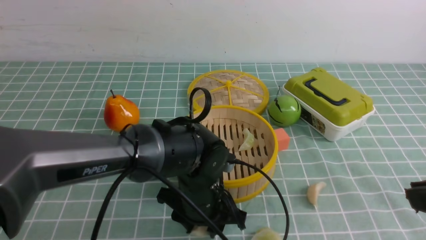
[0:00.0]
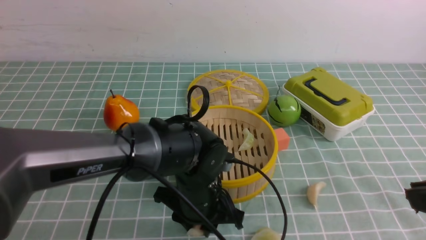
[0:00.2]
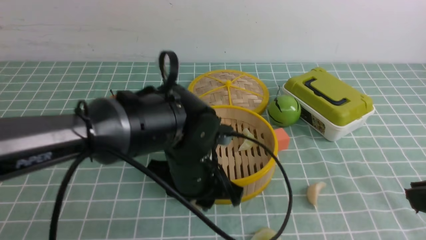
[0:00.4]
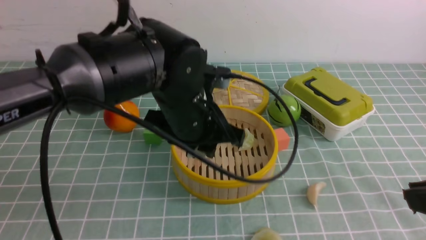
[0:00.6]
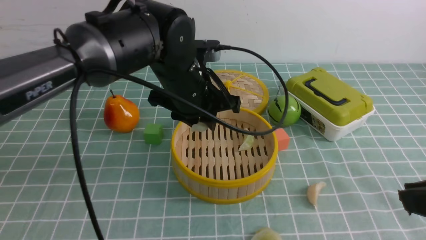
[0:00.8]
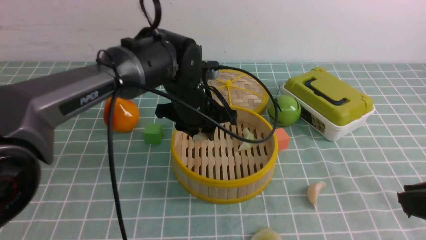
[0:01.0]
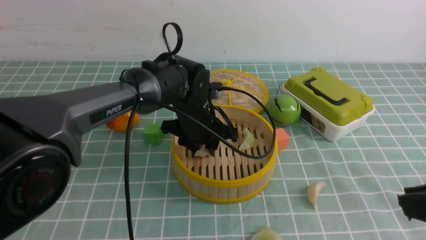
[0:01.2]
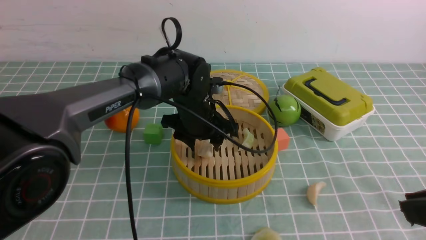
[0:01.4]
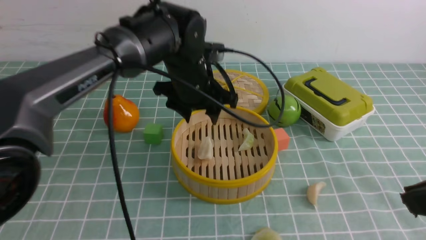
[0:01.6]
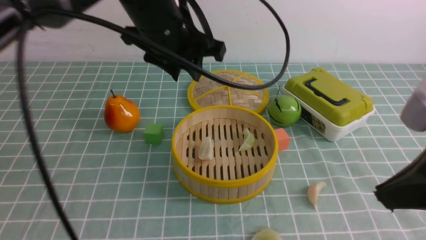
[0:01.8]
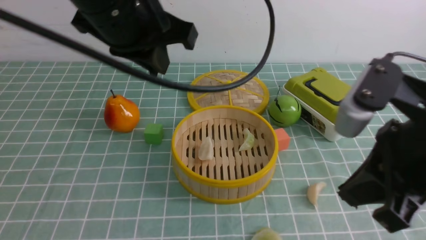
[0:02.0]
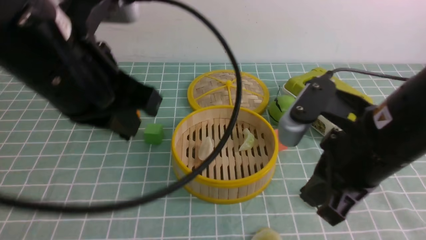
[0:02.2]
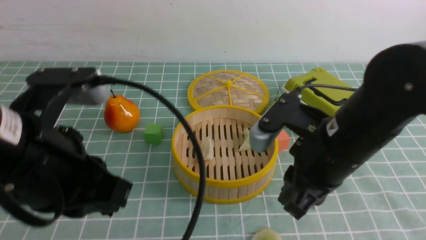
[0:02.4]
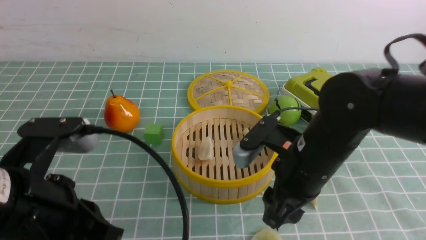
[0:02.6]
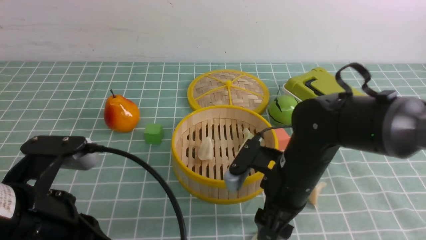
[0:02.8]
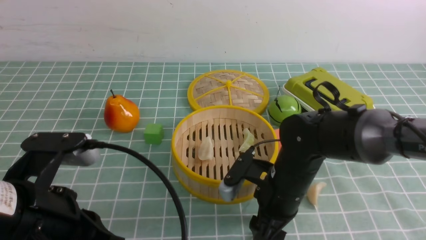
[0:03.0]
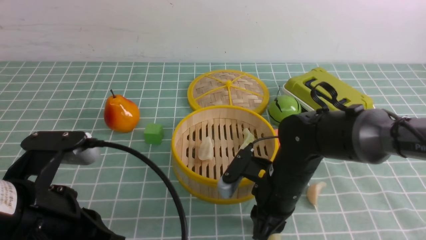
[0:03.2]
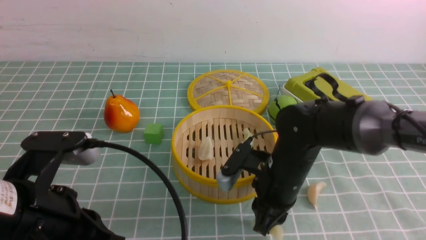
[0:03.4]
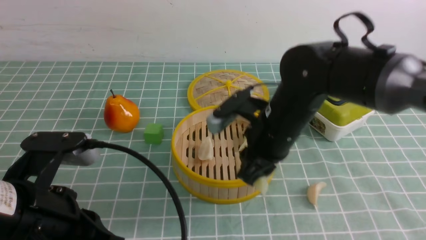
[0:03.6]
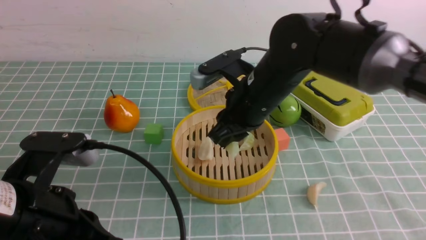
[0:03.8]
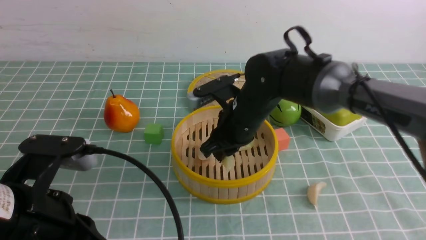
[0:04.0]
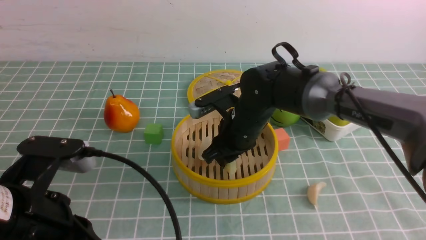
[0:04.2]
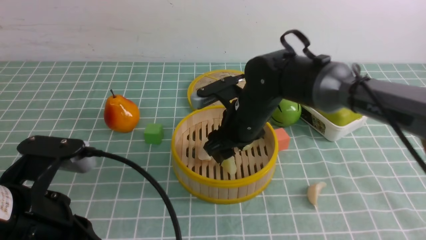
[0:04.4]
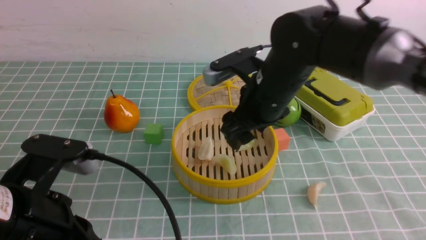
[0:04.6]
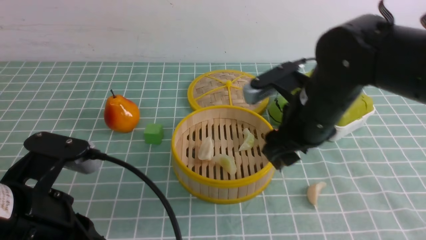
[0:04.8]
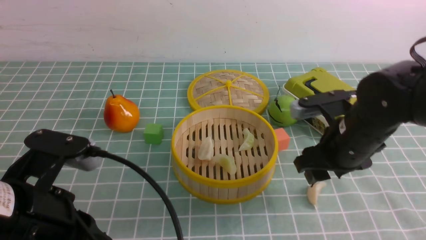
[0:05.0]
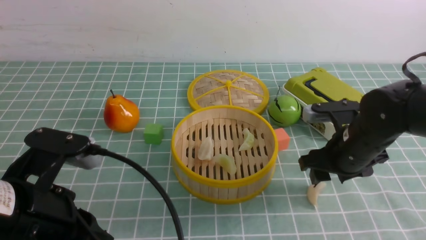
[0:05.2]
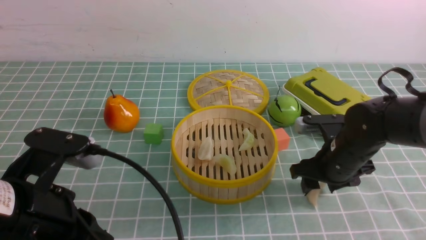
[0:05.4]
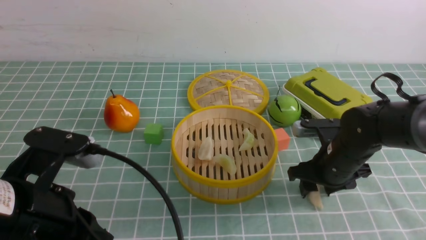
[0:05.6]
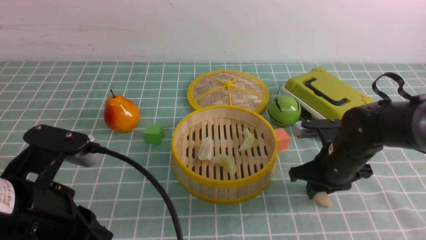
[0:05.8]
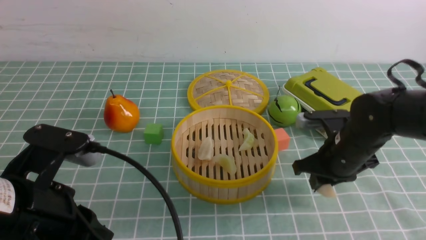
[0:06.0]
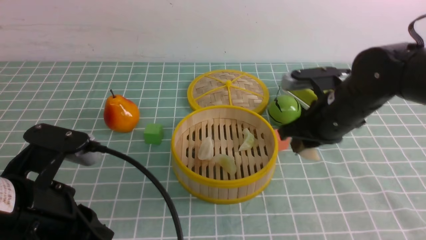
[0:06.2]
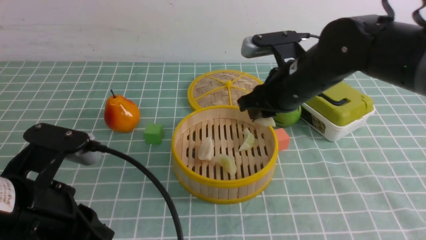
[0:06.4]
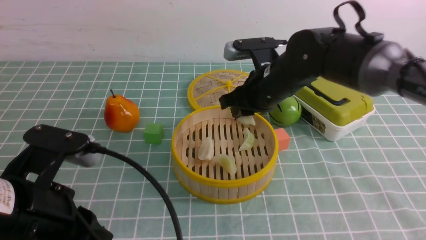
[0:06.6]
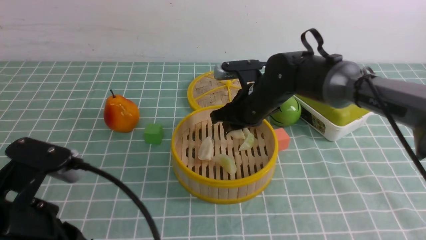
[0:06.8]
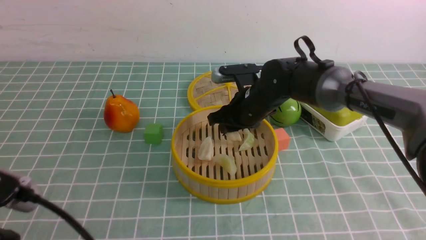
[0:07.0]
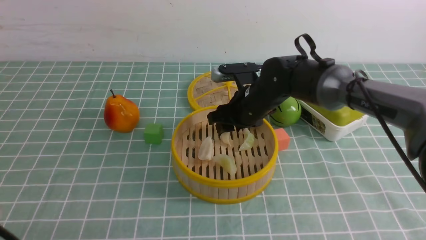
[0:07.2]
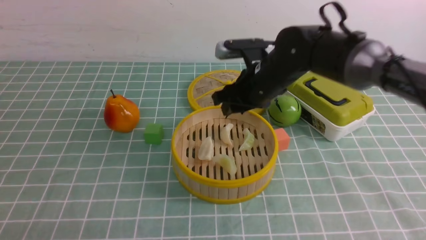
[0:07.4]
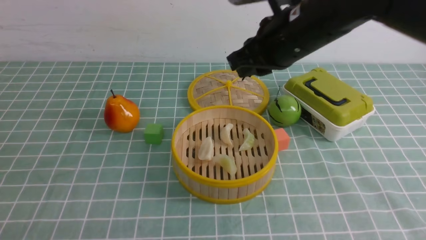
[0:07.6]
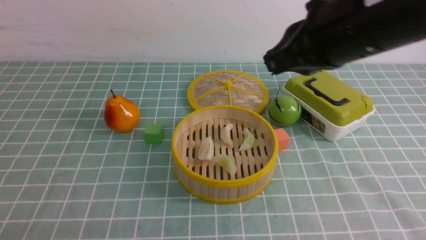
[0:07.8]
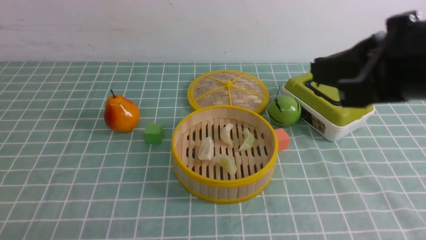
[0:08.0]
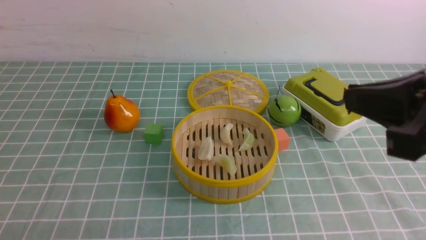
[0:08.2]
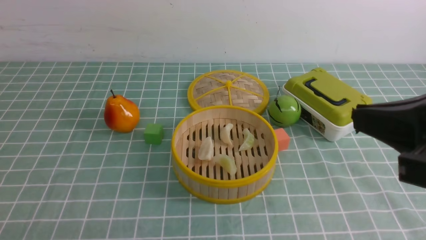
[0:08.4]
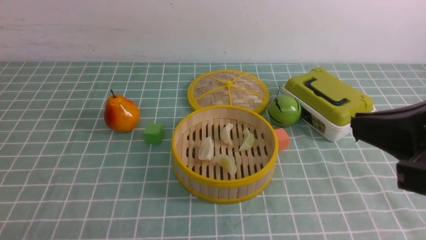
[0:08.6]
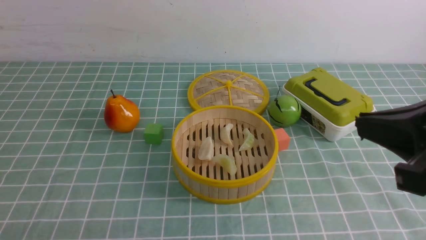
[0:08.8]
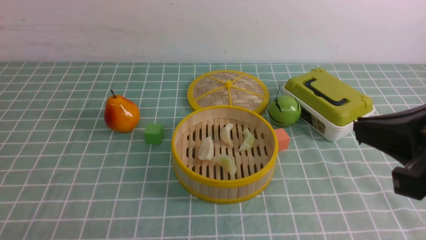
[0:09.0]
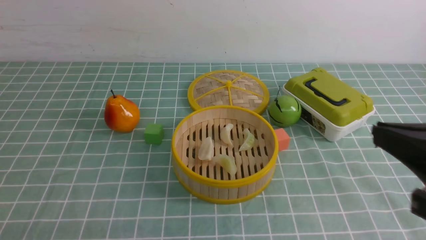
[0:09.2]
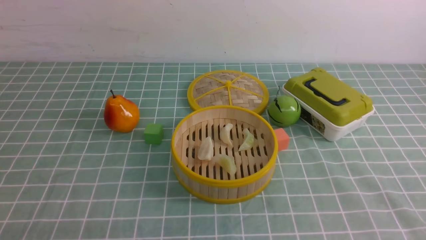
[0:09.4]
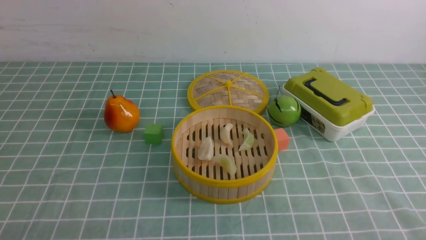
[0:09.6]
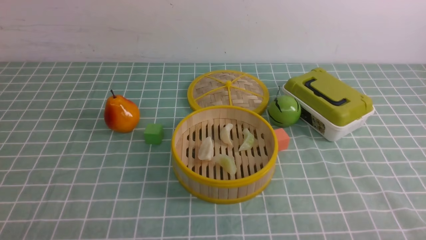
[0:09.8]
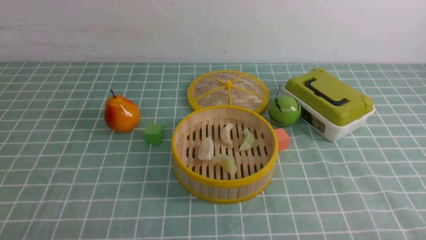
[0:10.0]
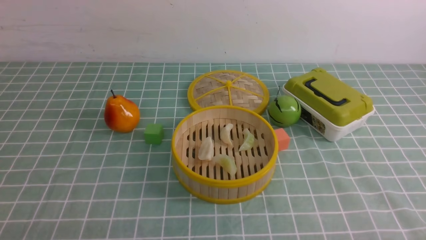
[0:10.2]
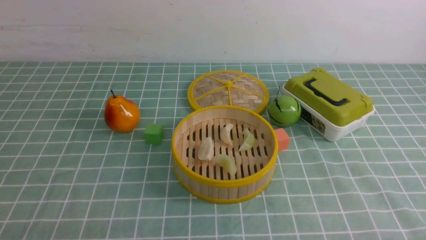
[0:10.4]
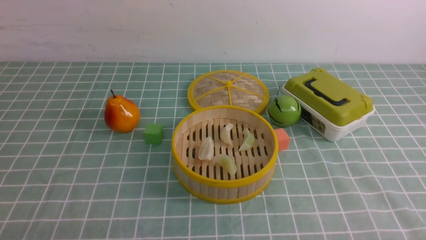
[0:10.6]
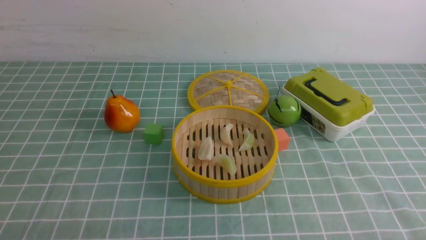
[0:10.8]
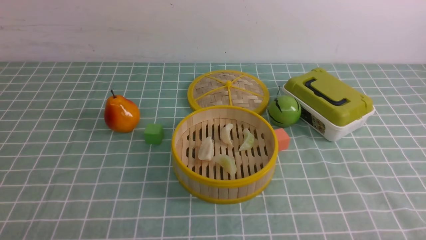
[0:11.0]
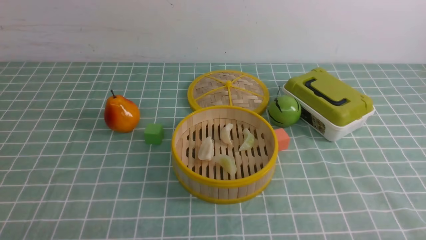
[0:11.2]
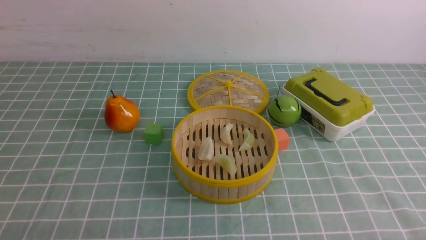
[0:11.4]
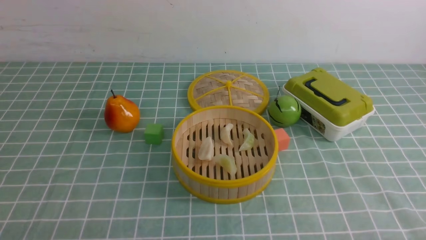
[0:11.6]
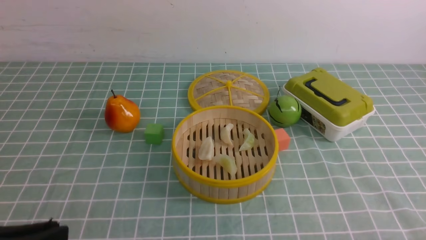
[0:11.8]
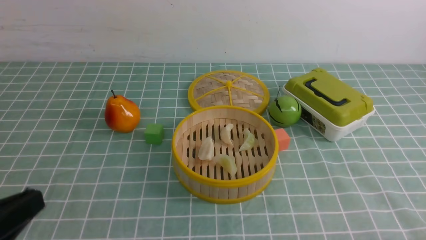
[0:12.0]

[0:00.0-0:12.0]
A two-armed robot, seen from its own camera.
Task of the whole recording: put the dumplings into the steamer on the table with the blue tablecloth.
Step, 0:00.8 to 0:01.8: use the left arm to put the dumpling into the steamer.
Step, 0:02.2 to 0:03.4: use the right arm to grab a dumpling.
Step, 0:03.6 to 0:04.6: use the right arm to put the dumpling into the steamer.
Step, 0:04.8 to 0:06.2: use the right arm to grab a dumpling.
Step, 0:06.4 to 0:07.6: use the right arm to put the dumpling into the steamer.
0:00.0 to 0:01.6: The left gripper goes up and down, approximately 15 cm each way, reversing 2 times.
0:01.6 to 0:03.0: The left gripper travels backward and to the left by approximately 30 cm, and closes; the right gripper is displaced downward, forward and to the left by some 30 cm, and opens.
0:03.0 to 0:04.4: The right gripper is displaced forward and upward by some 10 cm, and closes, then reopens.
0:04.4 to 0:06.0: The right gripper shifts approximately 15 cm to the right, and closes its fingers.
0:06.0 to 0:07.6: The left gripper is displaced backward by about 10 cm; the right gripper swings up and down, about 15 cm each way, with 2 reversals.
0:07.6 to 0:09.0: The right gripper is displaced backward and to the right by roughly 25 cm.
0:09.0 to 0:10.4: The right gripper heads downward, to the right and backward, covering roughly 25 cm.

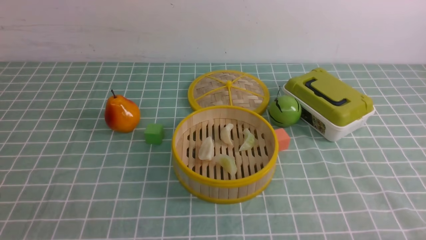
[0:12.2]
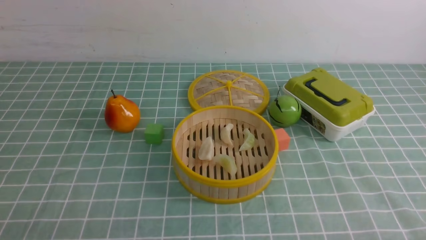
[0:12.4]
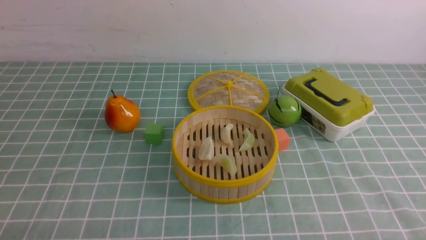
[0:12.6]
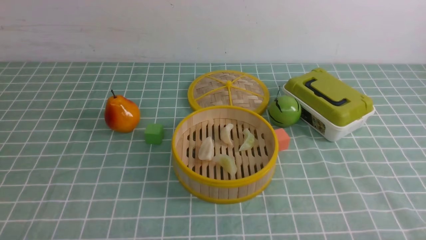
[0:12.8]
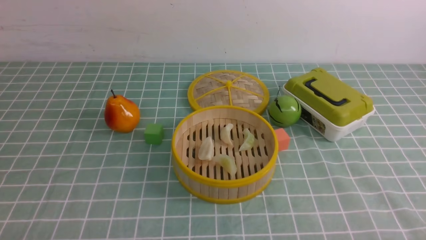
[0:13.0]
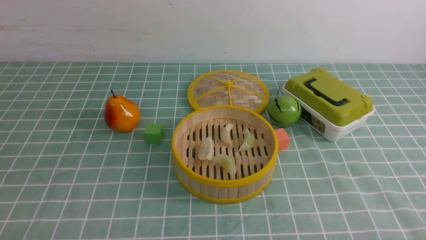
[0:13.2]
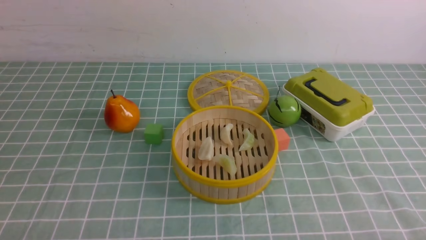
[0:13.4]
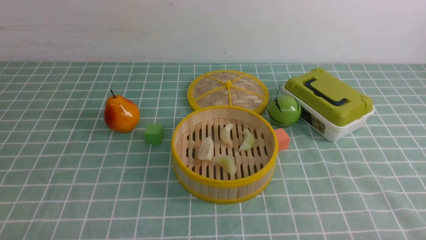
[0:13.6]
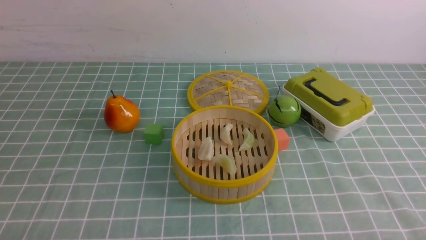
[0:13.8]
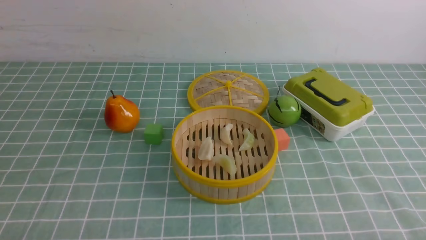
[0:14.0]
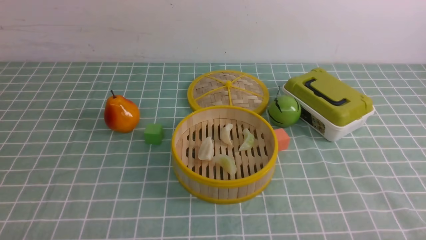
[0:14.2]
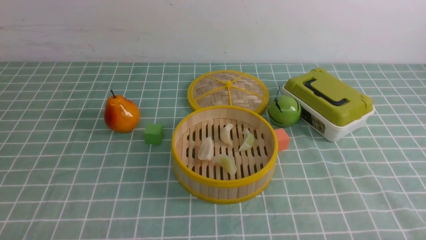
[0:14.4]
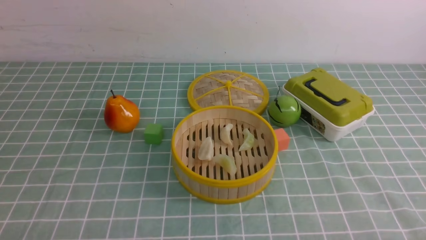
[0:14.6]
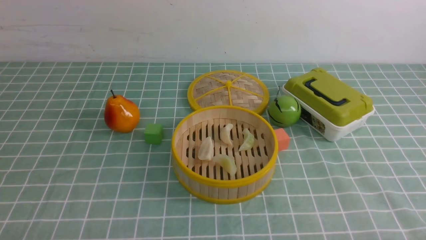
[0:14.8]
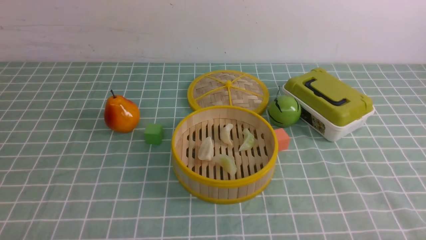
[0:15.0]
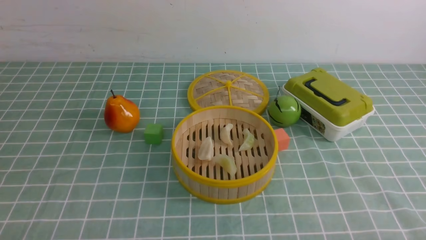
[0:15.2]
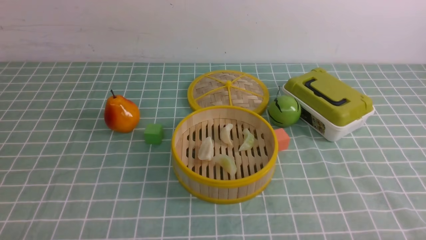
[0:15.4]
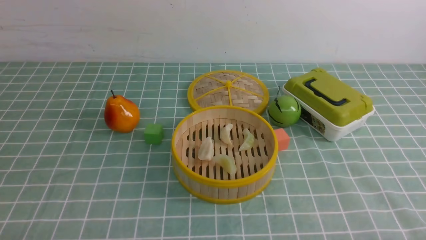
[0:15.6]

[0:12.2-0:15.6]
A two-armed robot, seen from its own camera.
Task of the whole recording: put the dumplings into the steamer on the table with the blue tablecloth.
0:13.8 to 0:15.6: Neither gripper changes place.

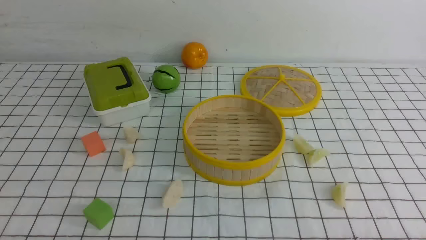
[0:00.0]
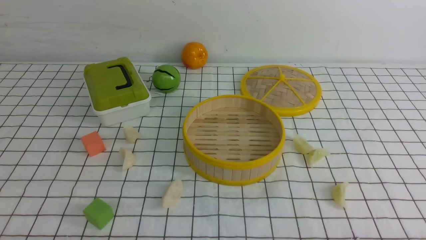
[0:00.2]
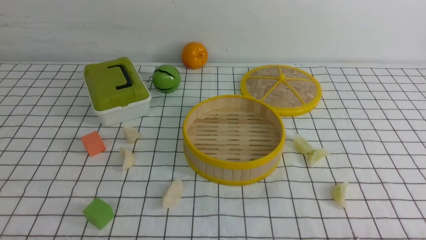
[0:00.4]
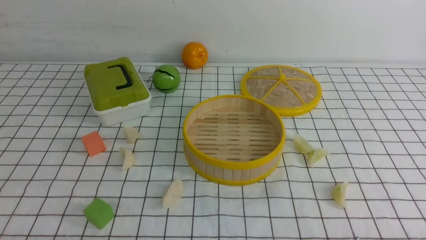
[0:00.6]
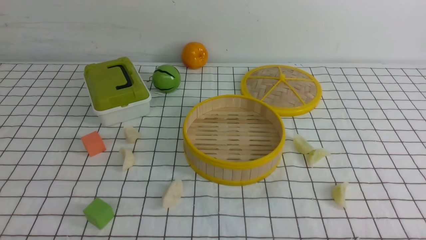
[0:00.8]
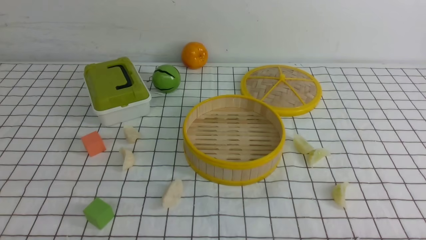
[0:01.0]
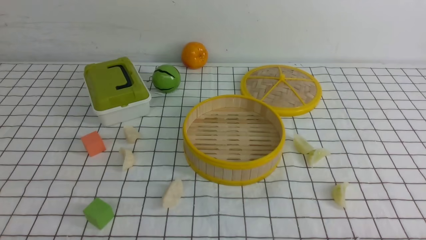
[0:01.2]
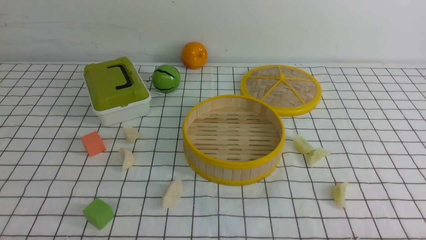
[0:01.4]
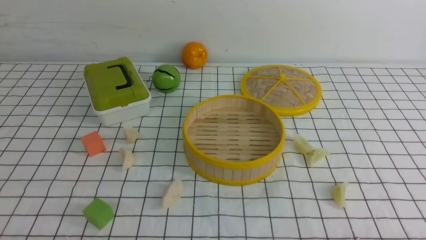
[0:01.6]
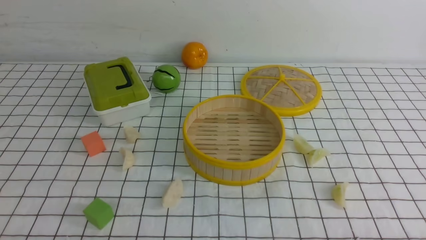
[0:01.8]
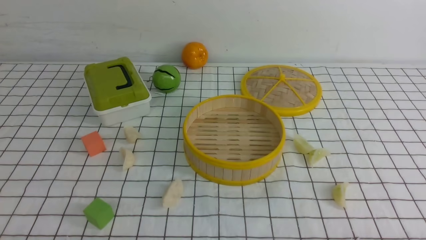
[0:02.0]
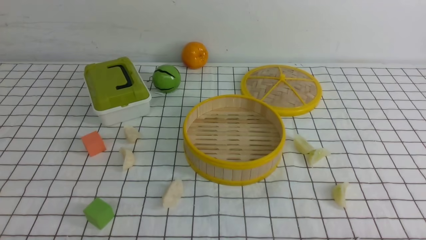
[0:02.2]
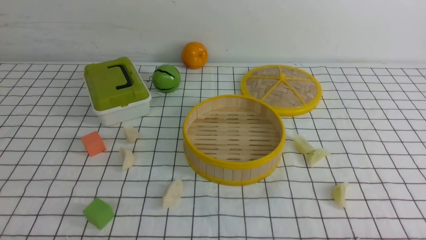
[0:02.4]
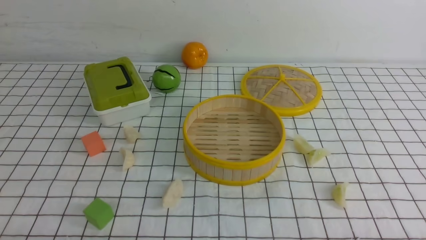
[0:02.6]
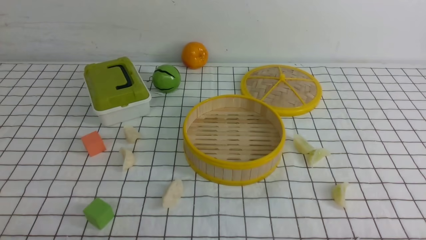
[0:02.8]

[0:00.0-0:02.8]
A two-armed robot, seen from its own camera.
Task of the whole recording: put the dumplings into the steamer on the table with the white tablecloth.
0:00.0 to 0:01.4: Both grippers stay put.
